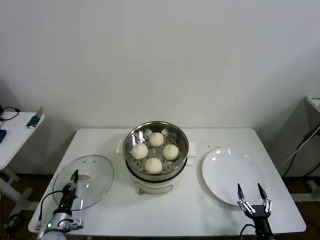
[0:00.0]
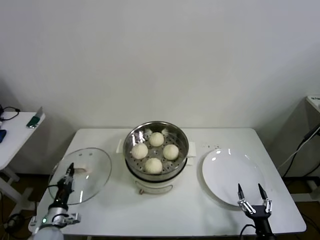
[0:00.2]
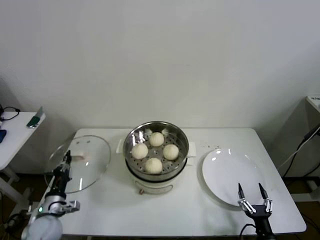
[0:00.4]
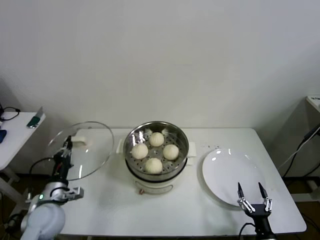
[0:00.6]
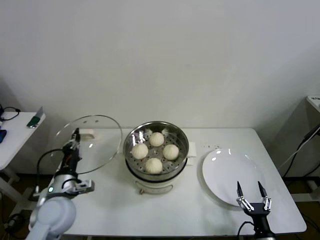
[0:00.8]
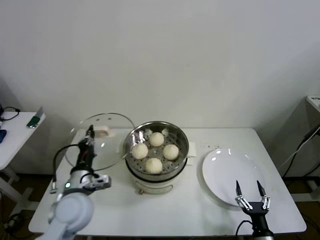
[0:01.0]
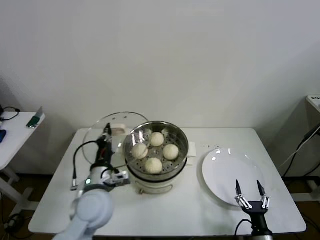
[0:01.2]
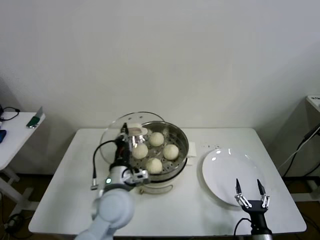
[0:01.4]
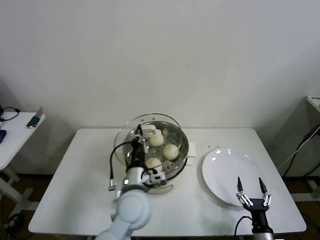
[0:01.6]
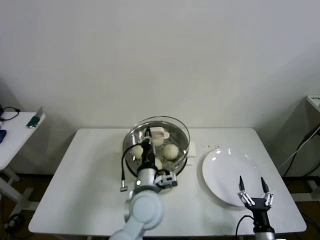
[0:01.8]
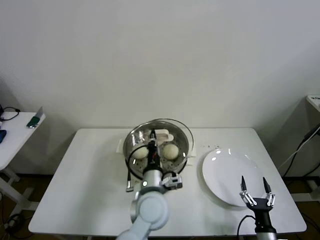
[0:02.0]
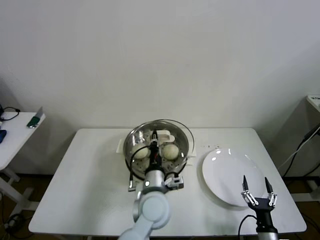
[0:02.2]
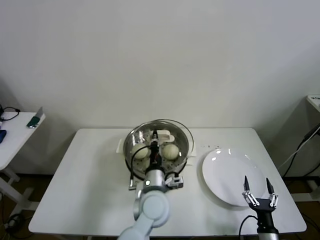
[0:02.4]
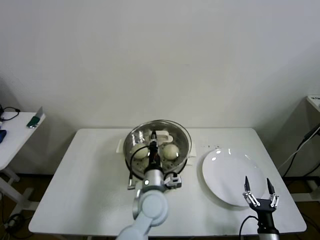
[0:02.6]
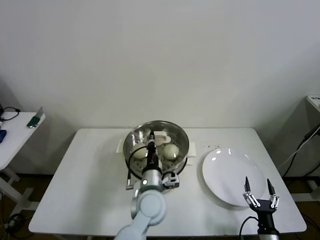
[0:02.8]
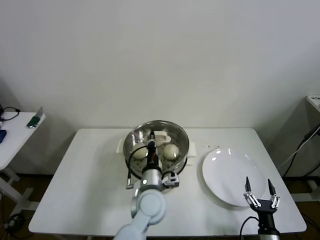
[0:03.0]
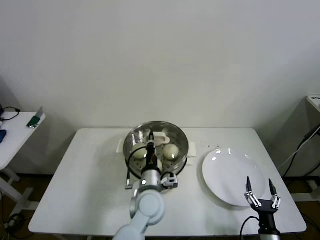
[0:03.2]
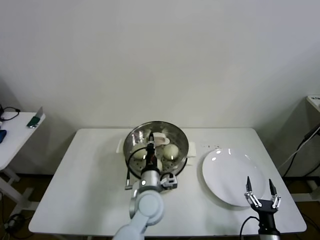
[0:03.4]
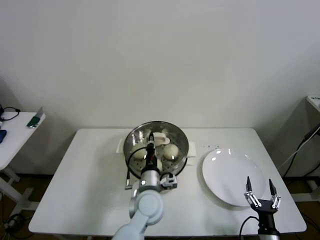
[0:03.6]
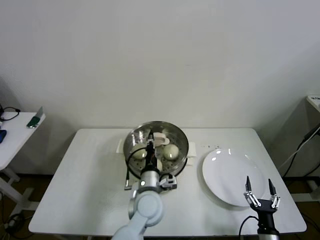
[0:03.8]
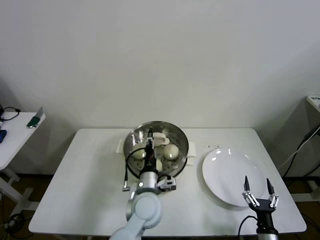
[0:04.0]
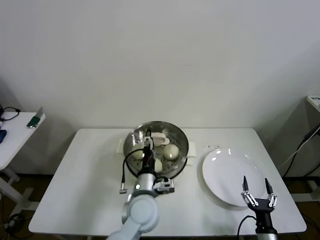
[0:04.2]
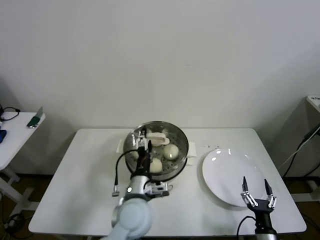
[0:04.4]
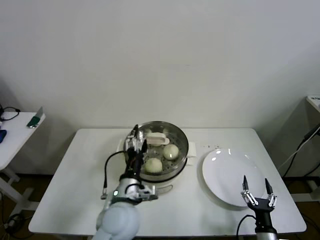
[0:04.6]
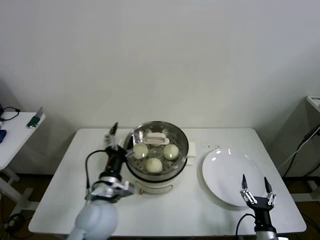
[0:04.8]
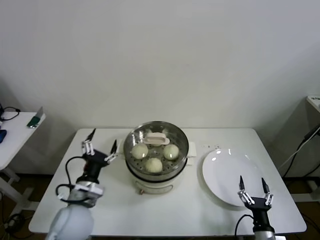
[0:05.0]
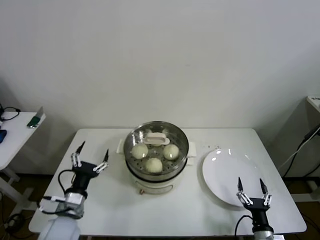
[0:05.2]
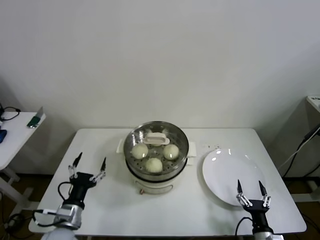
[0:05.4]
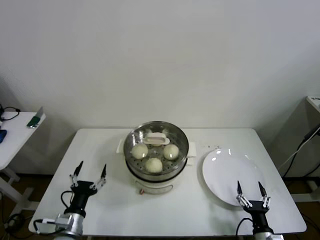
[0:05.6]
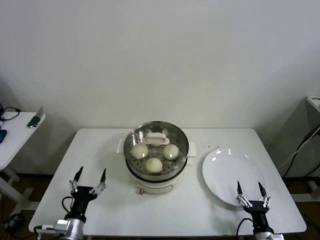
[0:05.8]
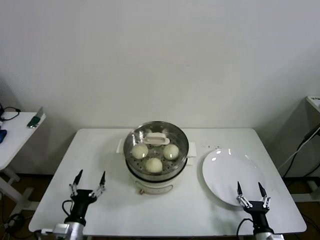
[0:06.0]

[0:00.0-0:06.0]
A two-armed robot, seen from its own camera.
Step, 0:00.0 to 0:03.8: Place the pot lid on the steamer with left gripper.
0:00.0 to 0:01.6: The left gripper goes approximately 40 cm to the right and upward.
0:01.6 to 0:03.0: The left gripper travels to the right and downward by roughly 10 cm.
0:03.0 to 0:04.4: The left gripper opens its fingers.
0:04.4 to 0:06.0: The left gripper goes approximately 25 cm to the left, downward and backward.

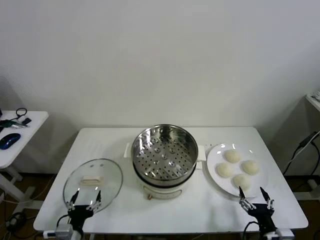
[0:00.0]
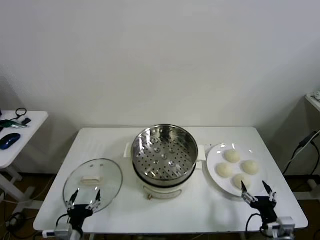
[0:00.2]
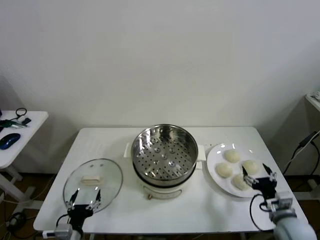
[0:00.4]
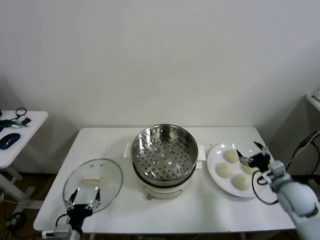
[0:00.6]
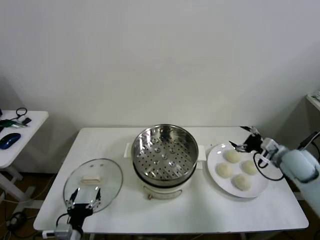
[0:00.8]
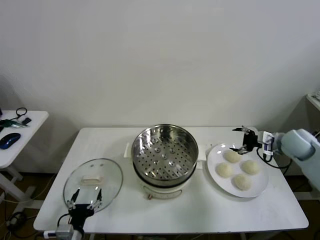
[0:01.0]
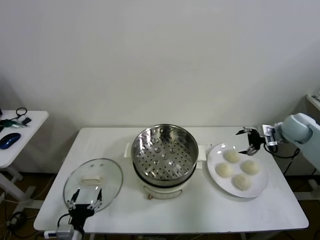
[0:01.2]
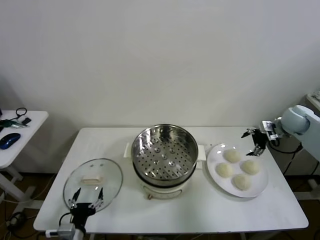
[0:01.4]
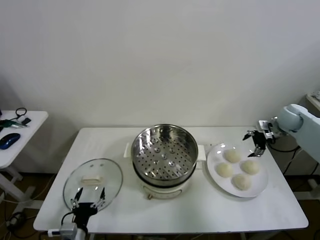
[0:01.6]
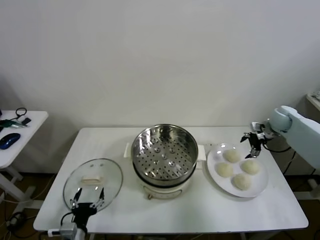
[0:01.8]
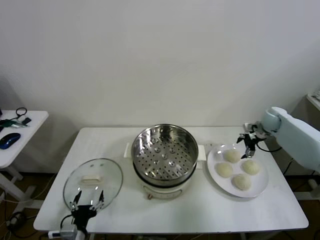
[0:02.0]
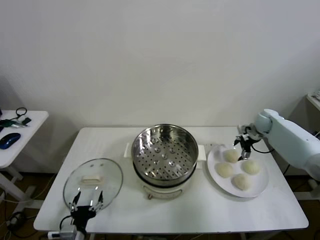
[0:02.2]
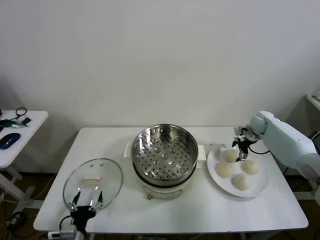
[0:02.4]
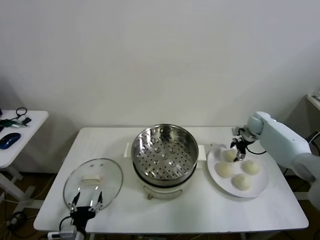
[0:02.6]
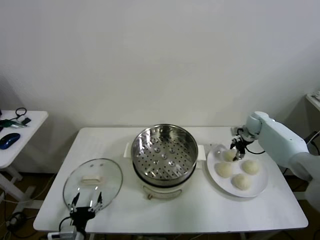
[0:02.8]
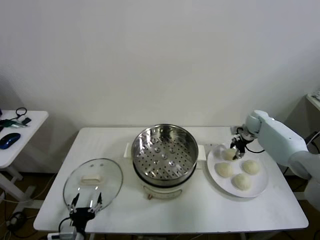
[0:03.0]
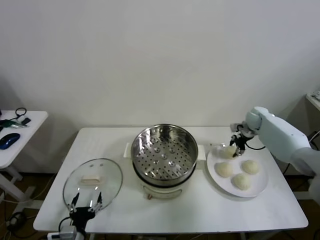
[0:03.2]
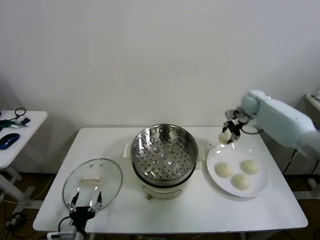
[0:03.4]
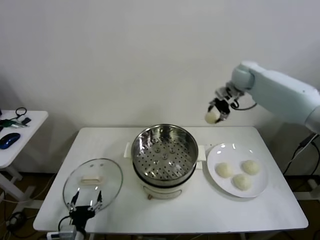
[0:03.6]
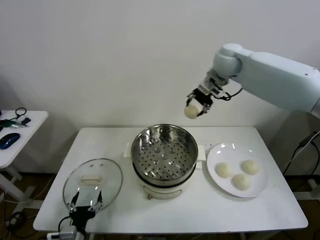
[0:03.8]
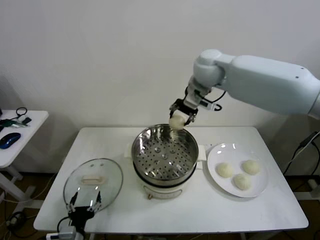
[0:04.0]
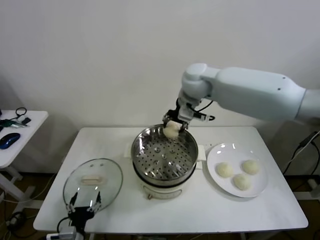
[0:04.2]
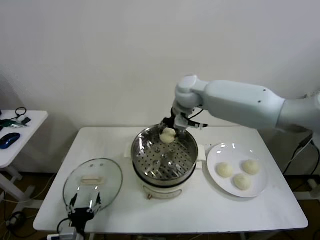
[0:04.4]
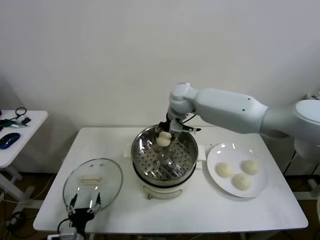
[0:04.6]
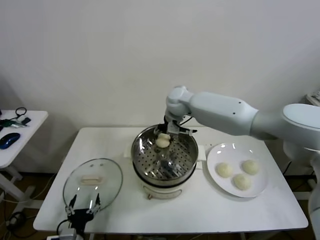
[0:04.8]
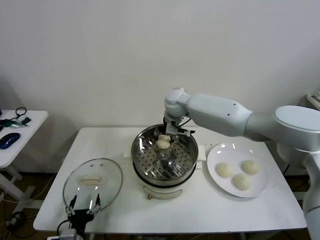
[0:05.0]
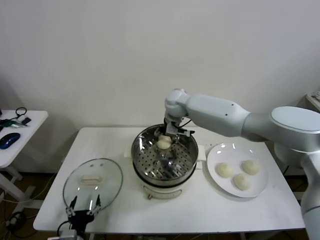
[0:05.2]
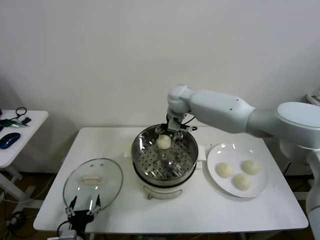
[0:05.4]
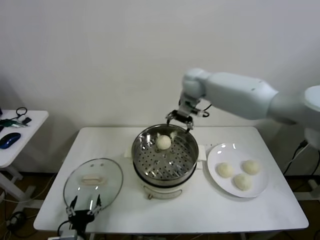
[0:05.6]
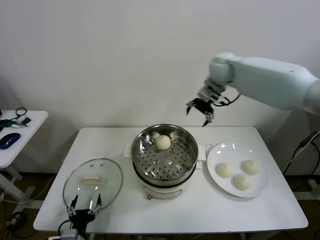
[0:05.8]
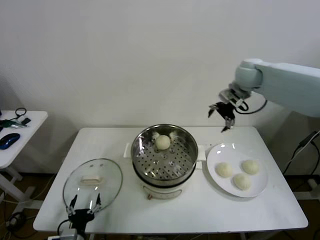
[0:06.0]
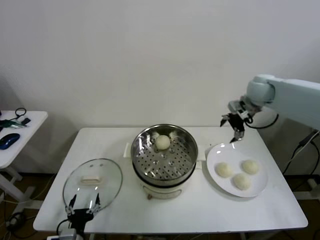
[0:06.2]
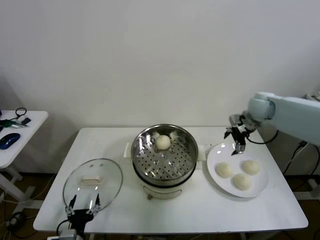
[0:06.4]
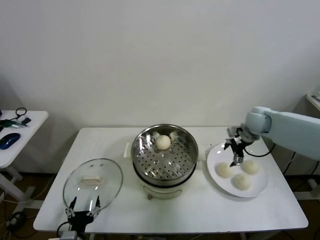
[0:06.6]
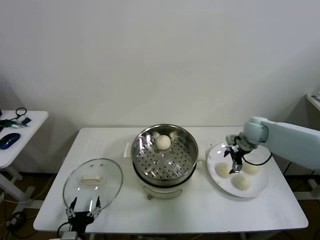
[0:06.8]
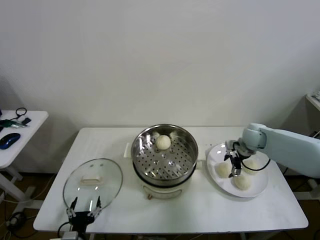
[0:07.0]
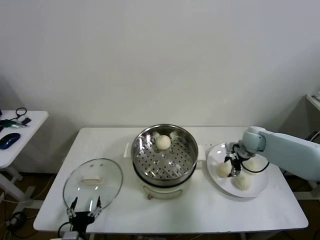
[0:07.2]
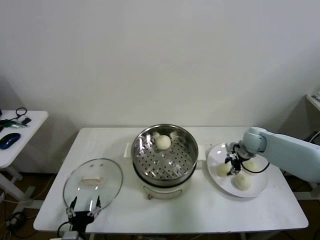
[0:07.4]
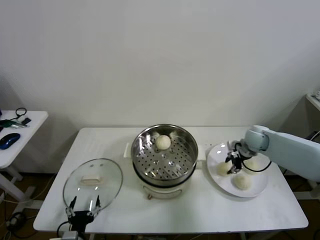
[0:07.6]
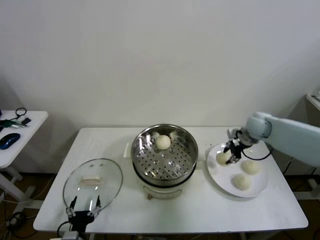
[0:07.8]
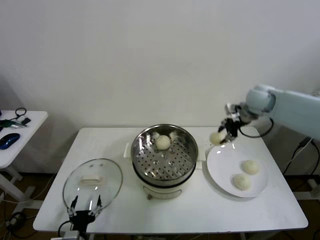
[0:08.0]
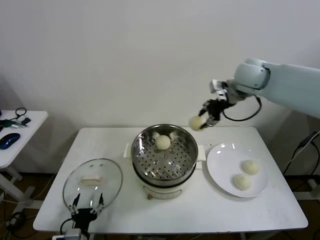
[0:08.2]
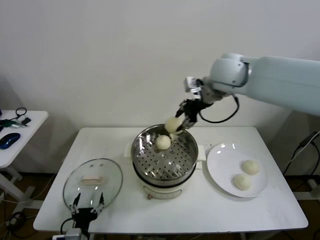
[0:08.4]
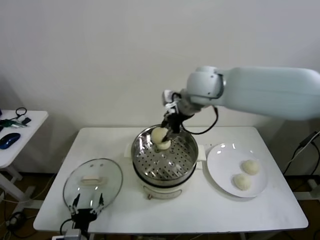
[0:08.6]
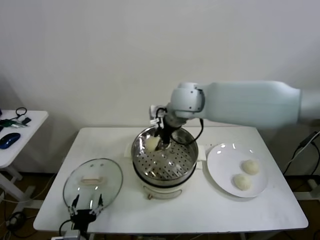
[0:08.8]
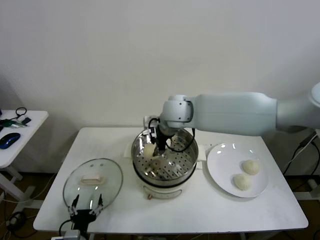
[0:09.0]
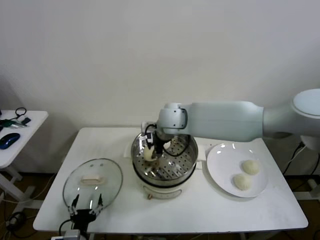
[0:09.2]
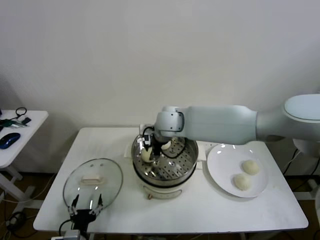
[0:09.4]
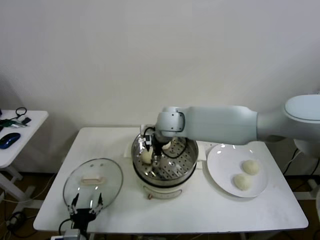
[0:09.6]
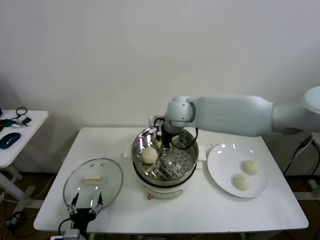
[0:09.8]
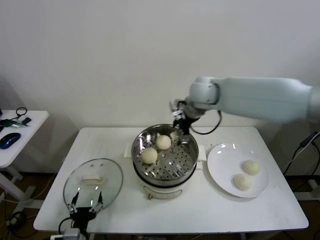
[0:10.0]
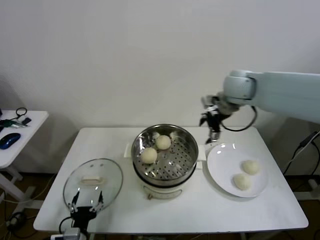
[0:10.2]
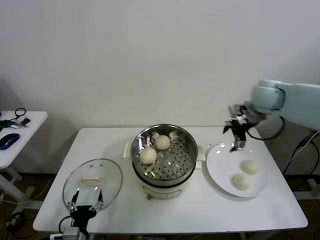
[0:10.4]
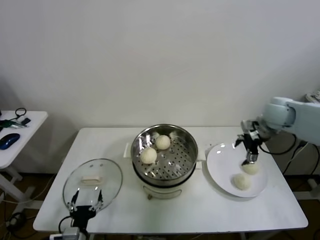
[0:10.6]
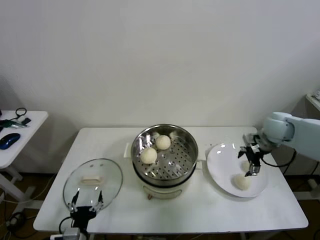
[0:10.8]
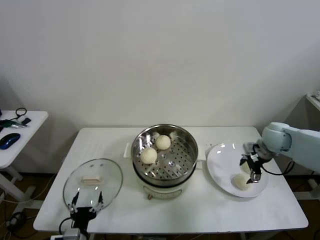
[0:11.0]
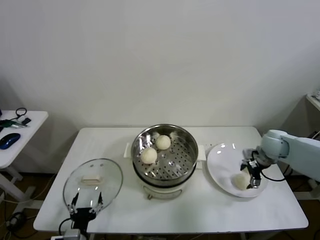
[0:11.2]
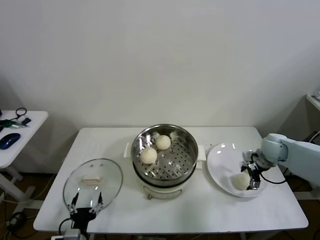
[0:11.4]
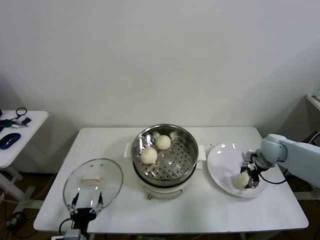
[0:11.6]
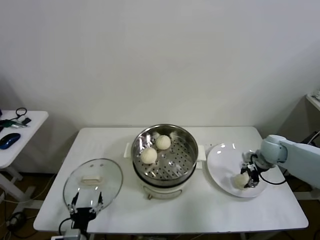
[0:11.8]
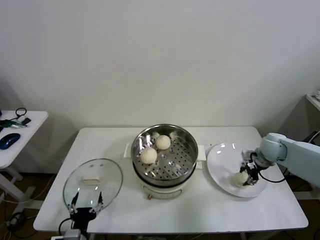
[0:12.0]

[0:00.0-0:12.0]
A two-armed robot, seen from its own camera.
Step, 0:00.0 to 0:02.8: Grasp the baozi in the plate with right gripper.
Step, 0:03.0 to 0:05.2: Place the baozi on the steamer with right gripper.
Step, 0:05.4 to 0:07.2: Grasp the baozi in the plate with right gripper.
Step, 0:07.6 to 0:09.4: Place the baozi on the steamer with right gripper.
Step, 0:09.8 to 0:11.8: Grasp the baozi in the plate with right gripper.
0:01.6 to 0:03.0: The right gripper goes approximately 10 cm downward, forward and to the left, and closes up.
0:03.0 to 0:04.4: The right gripper goes approximately 35 cm to the left and upward.
0:04.4 to 0:06.0: The right gripper moves to the right, some 25 cm, and opens.
0:06.0 to 0:07.6: The right gripper heads downward, covering roughly 20 cm, and closes its fingers.
0:07.6 to 0:09.0: The right gripper heads to the left and upward, covering about 35 cm.
0:09.0 to 0:10.4: The right gripper moves to the right, about 30 cm, and opens up.
0:10.4 to 0:12.0: The right gripper shifts about 20 cm downward, and closes up.

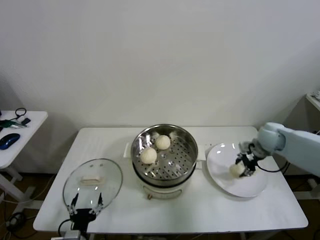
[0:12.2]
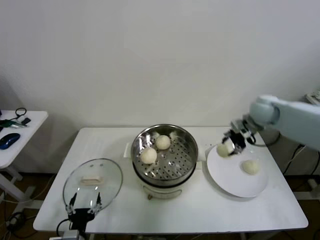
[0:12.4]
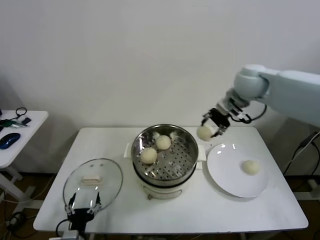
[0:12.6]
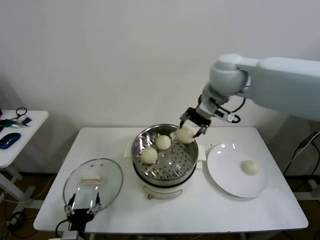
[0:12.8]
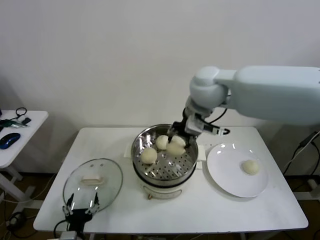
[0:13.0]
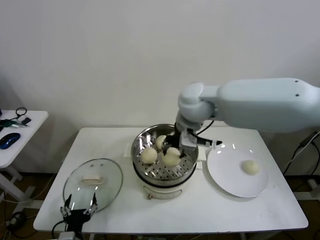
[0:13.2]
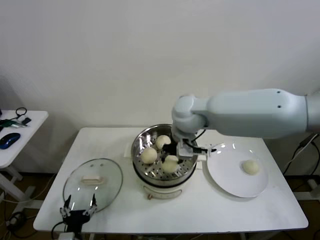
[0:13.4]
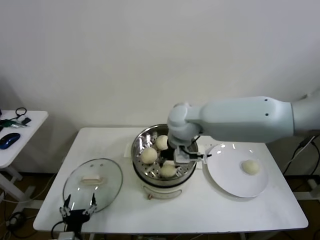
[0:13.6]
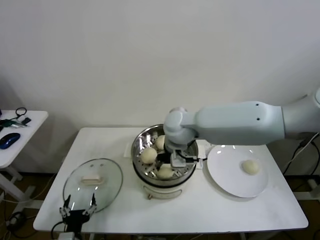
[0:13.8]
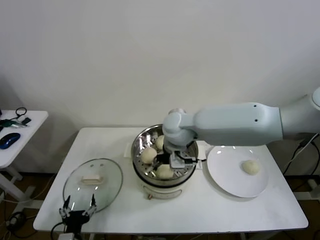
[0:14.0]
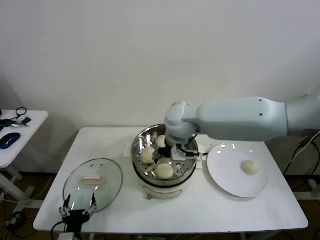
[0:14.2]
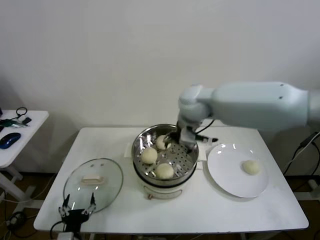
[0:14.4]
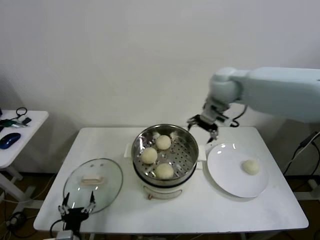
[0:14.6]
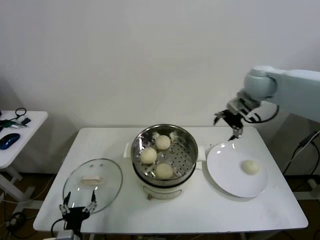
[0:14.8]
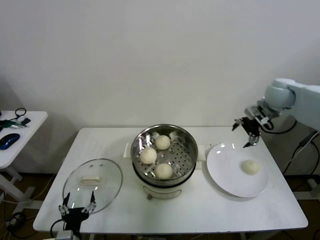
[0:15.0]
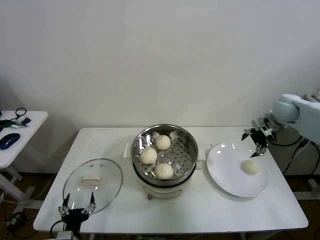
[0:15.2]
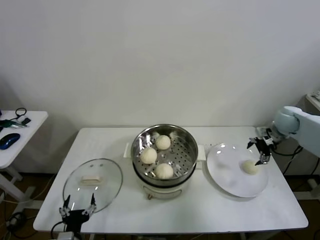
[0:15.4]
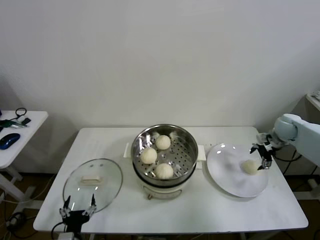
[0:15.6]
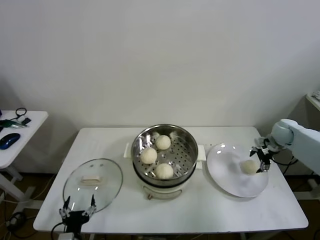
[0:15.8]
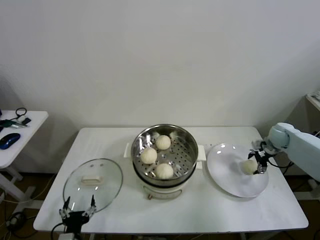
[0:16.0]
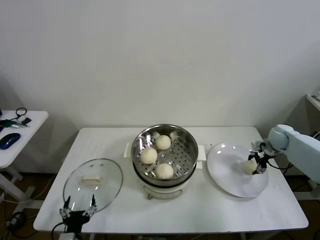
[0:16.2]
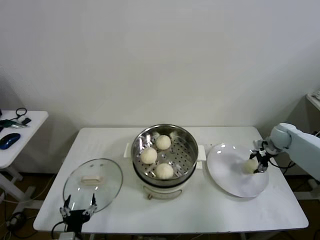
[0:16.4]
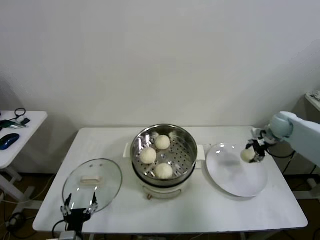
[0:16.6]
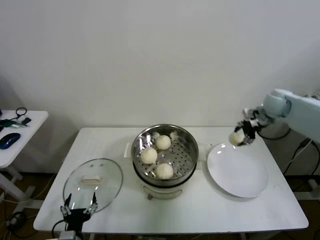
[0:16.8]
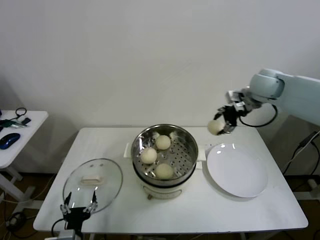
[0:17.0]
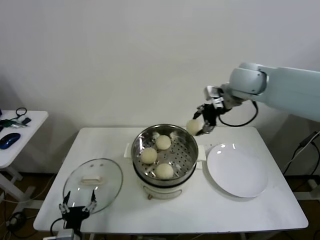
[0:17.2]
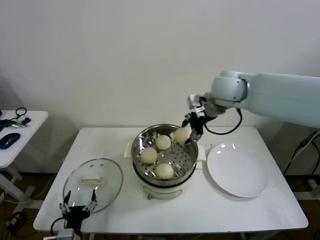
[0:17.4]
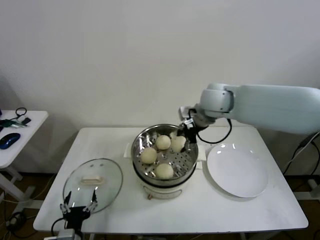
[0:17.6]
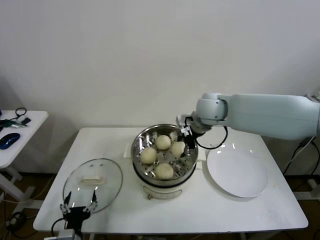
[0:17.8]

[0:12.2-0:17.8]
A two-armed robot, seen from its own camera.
Step, 0:12.2 to 0:14.0: Place the baozi on the steamer with right gripper.
Step, 0:14.2 to 0:16.0: Grasp the baozi in the plate with right gripper.
0:12.2 to 0:13.6: The right gripper goes some 30 cm to the left.
0:13.6 to 0:15.0: The right gripper shifts some 35 cm to the right, and opens its fingers.
0:15.0 to 0:16.4: The right gripper shifts approximately 20 cm downward and to the right, and closes.
0:16.4 to 0:17.8: The right gripper moves to the left and upward, some 35 cm.
